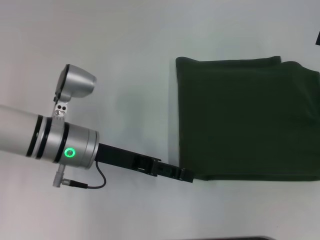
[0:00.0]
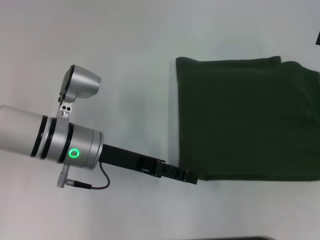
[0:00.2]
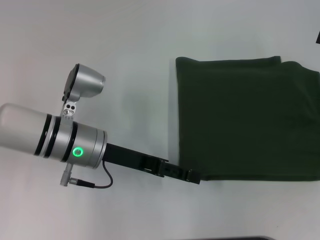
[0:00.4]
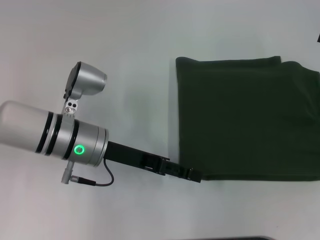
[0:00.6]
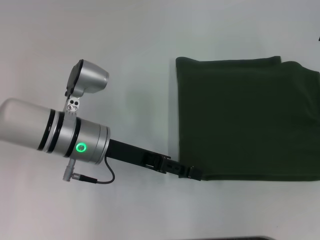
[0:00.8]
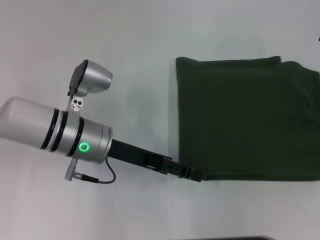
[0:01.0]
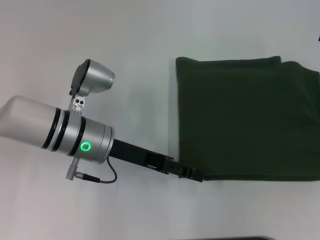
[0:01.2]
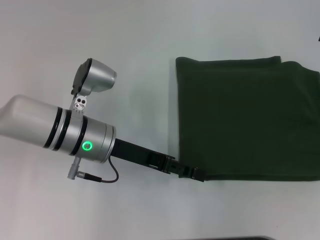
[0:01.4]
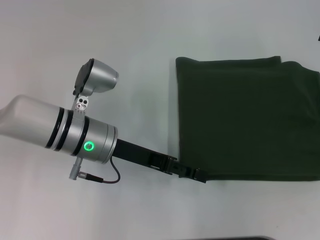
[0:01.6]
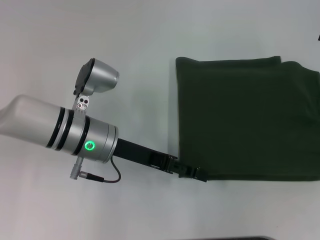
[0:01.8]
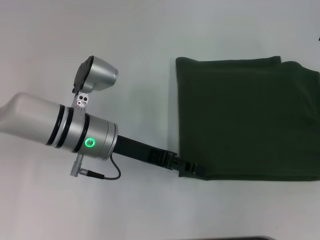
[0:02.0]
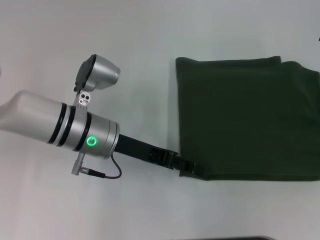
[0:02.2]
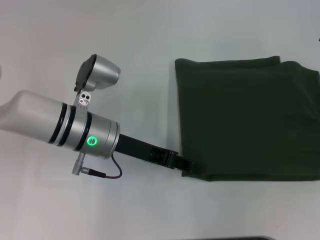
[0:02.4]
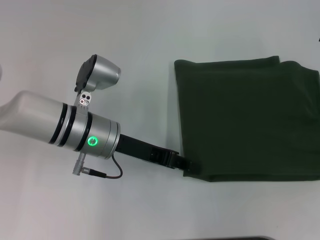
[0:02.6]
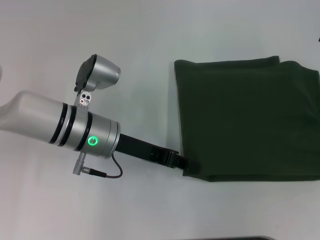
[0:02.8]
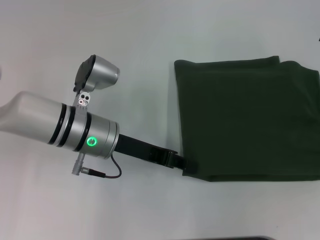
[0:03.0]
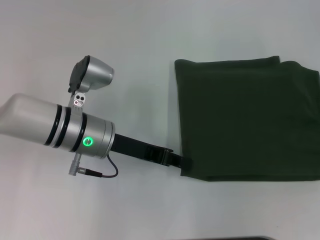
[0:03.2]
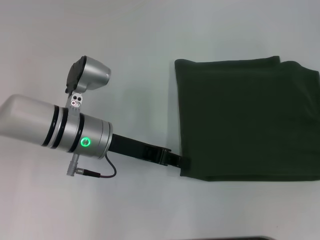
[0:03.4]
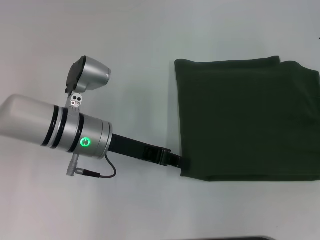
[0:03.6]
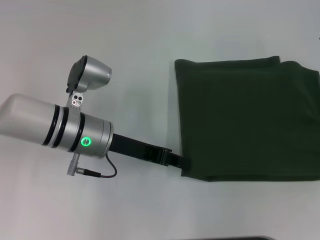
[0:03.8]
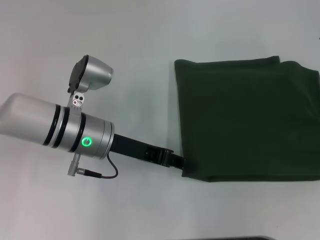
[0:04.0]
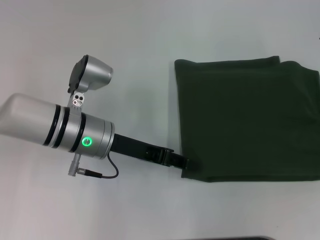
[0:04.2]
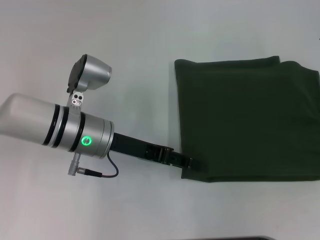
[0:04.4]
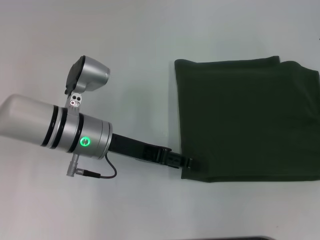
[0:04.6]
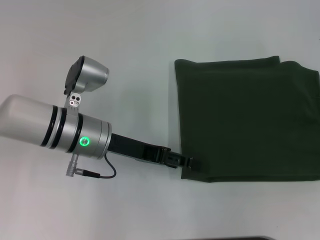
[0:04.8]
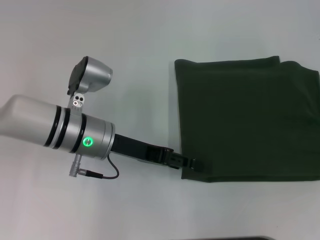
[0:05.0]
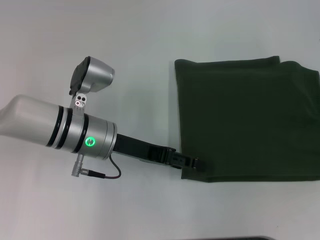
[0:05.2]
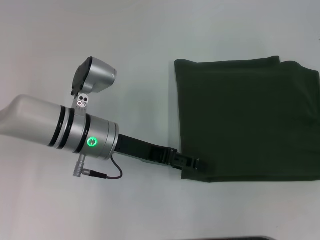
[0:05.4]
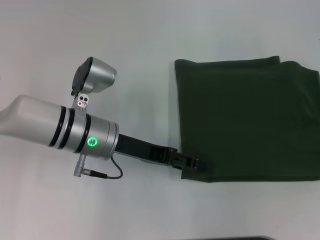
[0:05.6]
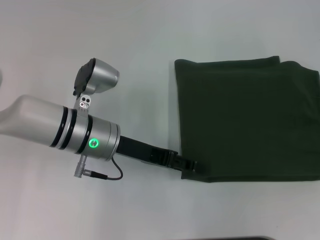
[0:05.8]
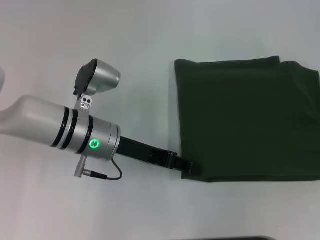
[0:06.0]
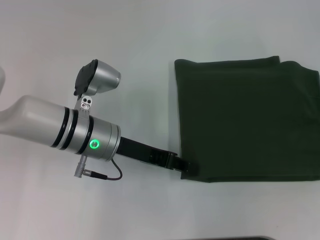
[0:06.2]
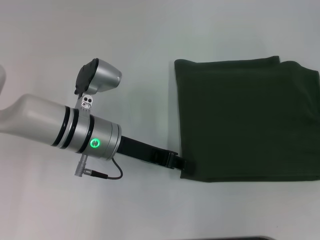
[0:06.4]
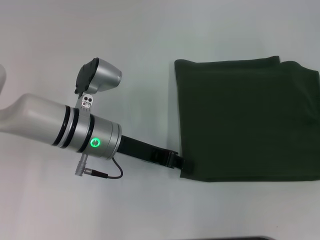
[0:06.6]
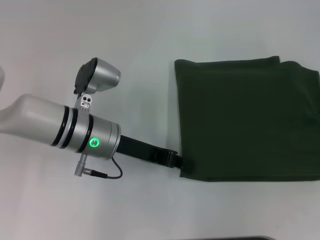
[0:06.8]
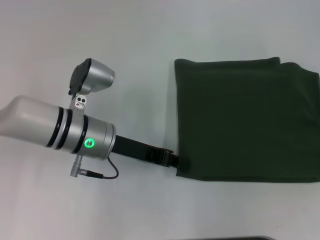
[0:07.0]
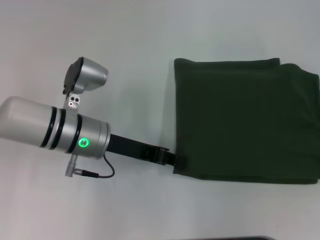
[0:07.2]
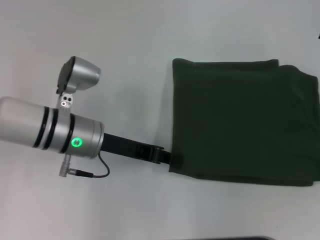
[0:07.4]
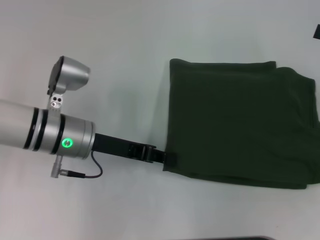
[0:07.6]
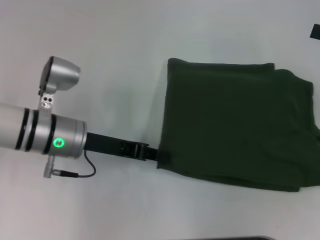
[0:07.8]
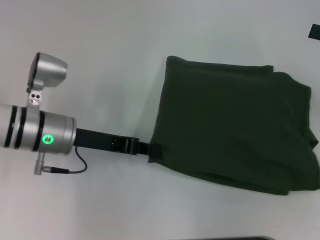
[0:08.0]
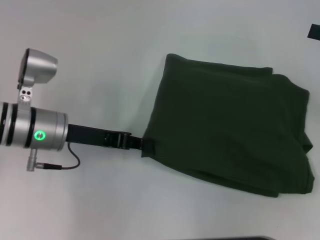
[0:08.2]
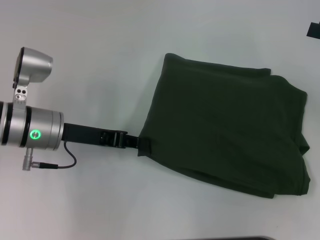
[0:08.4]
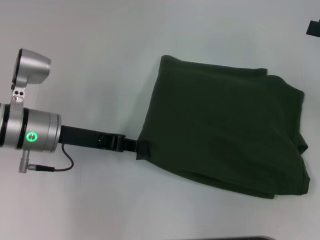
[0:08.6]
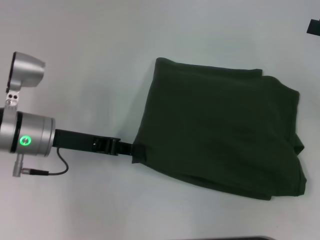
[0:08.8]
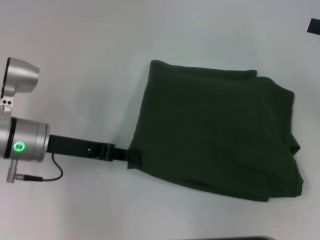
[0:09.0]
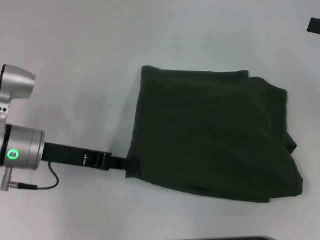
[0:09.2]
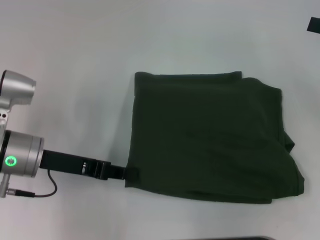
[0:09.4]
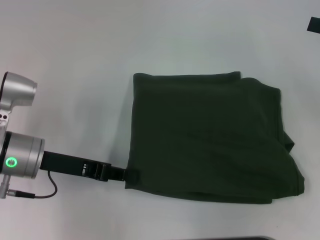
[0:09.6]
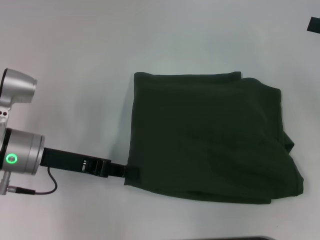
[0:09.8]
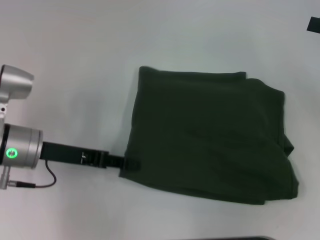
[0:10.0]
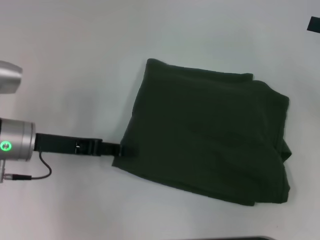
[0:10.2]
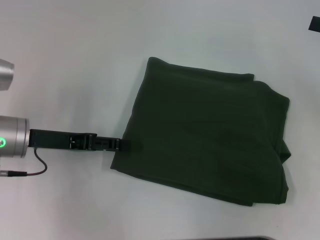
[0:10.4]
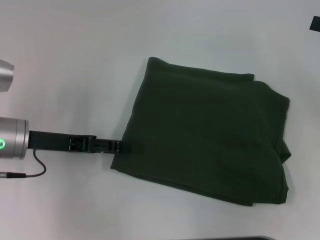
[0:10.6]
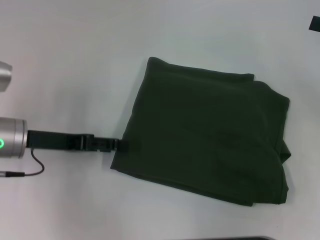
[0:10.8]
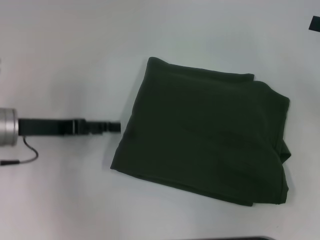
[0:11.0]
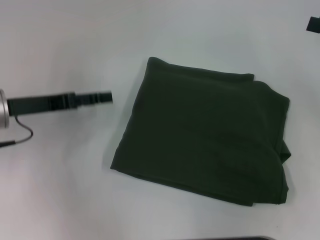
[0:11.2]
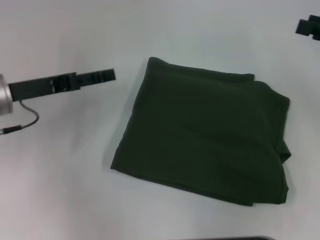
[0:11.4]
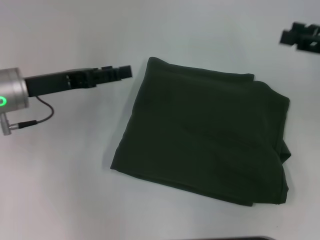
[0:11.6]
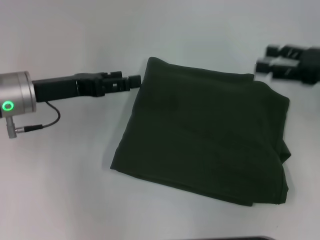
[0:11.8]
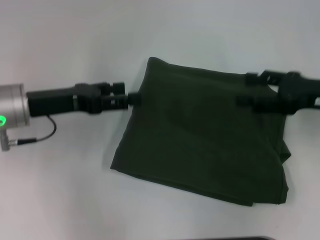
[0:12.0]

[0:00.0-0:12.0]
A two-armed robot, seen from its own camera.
0:00.0 to 0:01.6: The grippers move only a little.
0:01.6 to 0:03.0: The left gripper closes its fingers.
0:03.0 to 0:04.4: Neither gripper changes place.
0:04.4 to 0:06.0: The left gripper opens.
0:06.0 to 0:07.6: The left gripper closes.
0:07.6 to 0:09.0: The left gripper moves to the left, roughly 5 cm.
0:09.0 to 0:10.4: The left gripper opens up.
0:10.4 to 0:12.0: The right gripper shifts approximately 10 cm to the left and downward. Meanwhile the left gripper opens.

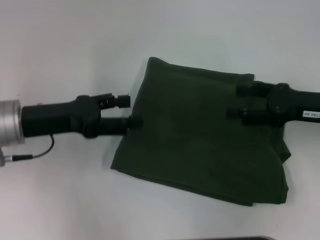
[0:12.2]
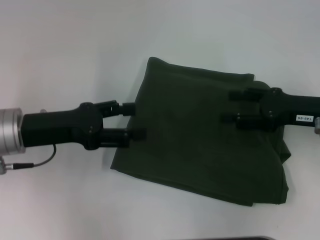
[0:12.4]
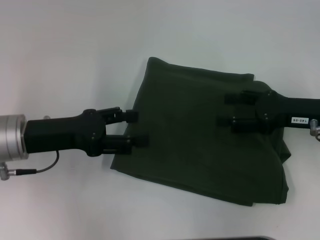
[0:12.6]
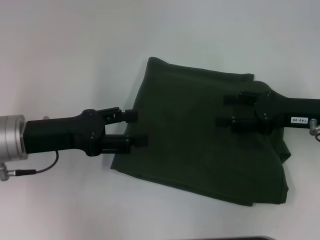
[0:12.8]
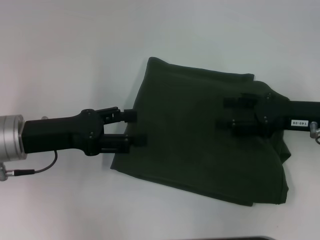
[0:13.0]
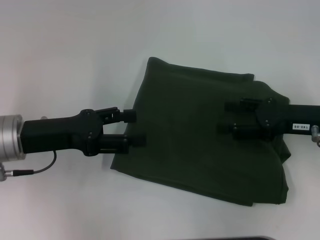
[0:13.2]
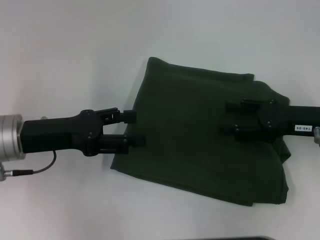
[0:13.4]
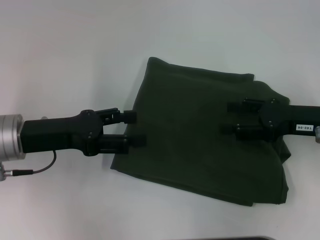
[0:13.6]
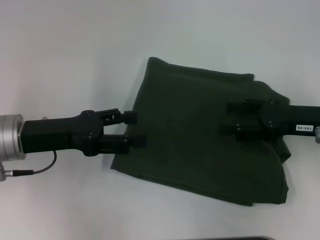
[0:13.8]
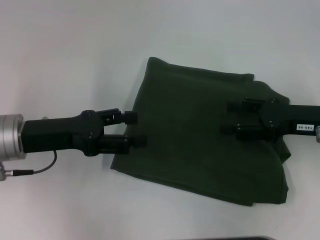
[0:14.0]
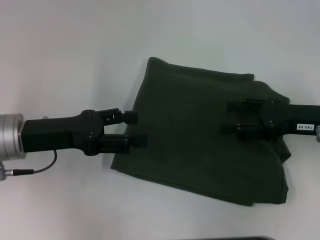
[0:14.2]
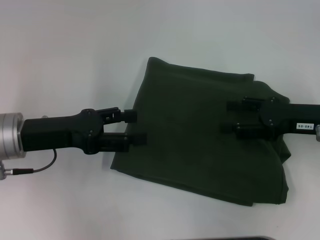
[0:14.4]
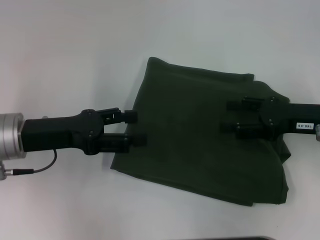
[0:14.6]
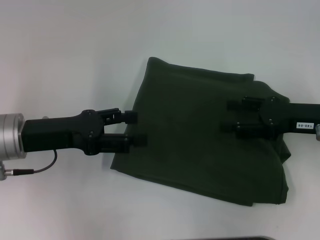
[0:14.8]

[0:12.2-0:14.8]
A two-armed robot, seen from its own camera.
0:12.2 to 0:13.4: The grippers stay close to where they were, moving slightly.
0:13.4 to 0:14.8: Both grippers stay put.
